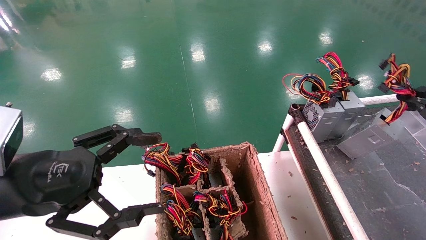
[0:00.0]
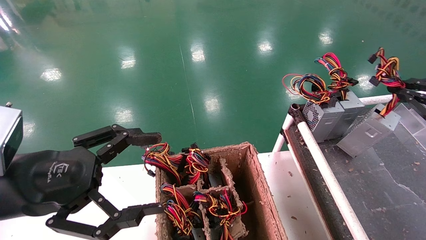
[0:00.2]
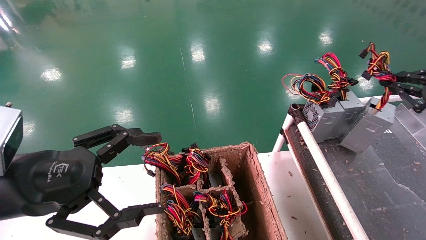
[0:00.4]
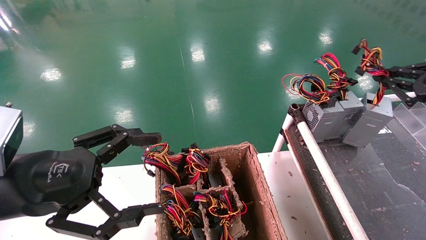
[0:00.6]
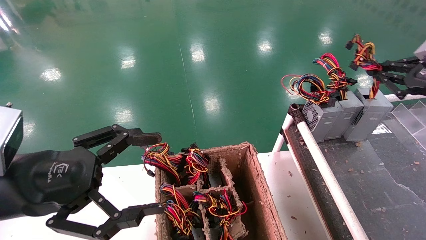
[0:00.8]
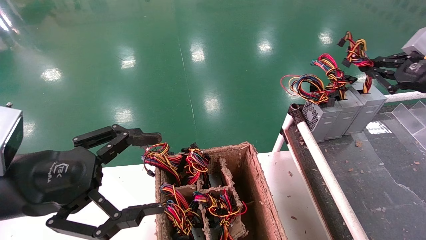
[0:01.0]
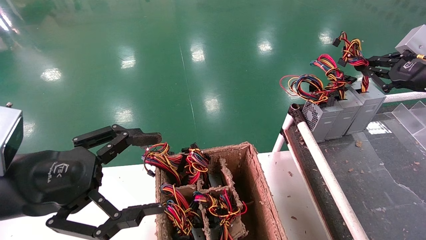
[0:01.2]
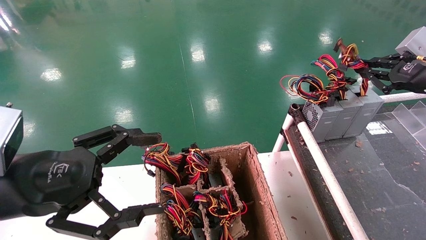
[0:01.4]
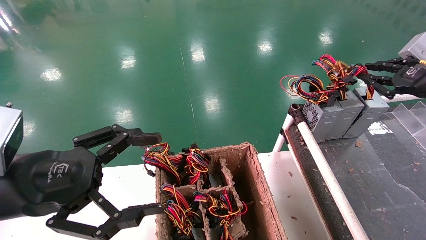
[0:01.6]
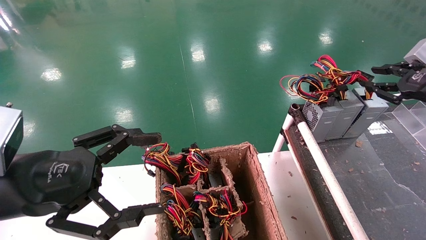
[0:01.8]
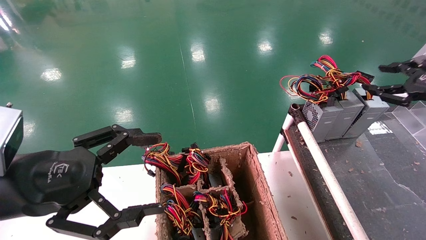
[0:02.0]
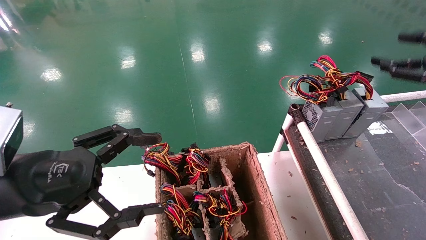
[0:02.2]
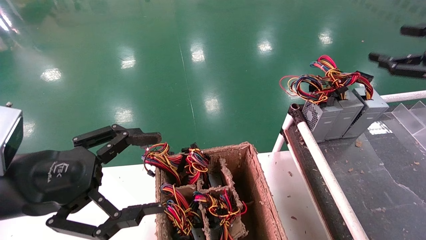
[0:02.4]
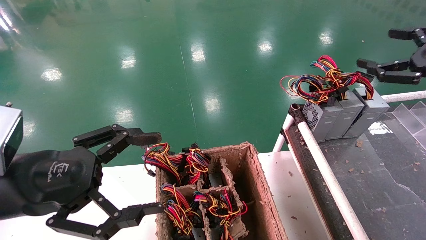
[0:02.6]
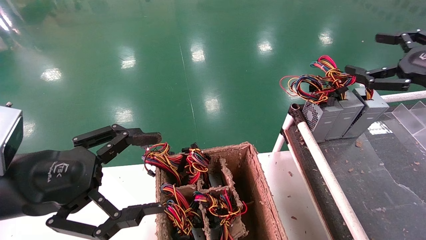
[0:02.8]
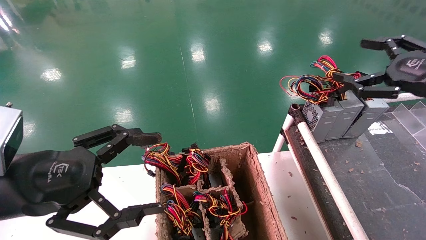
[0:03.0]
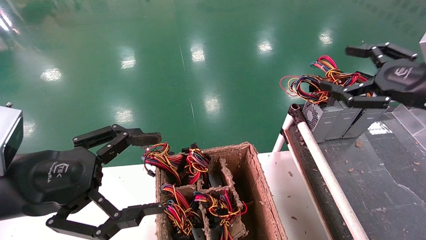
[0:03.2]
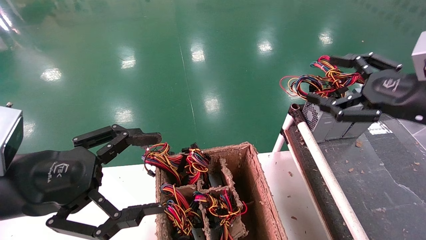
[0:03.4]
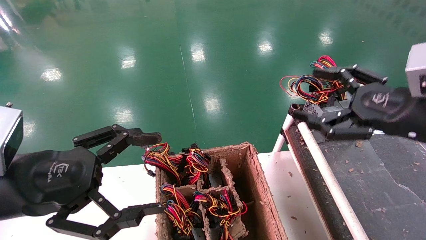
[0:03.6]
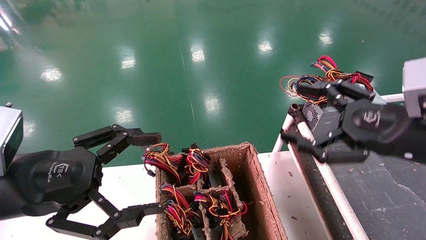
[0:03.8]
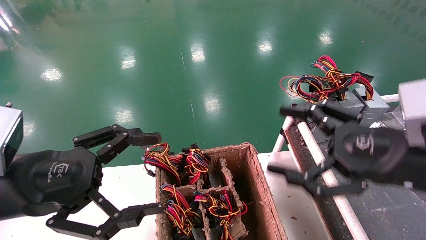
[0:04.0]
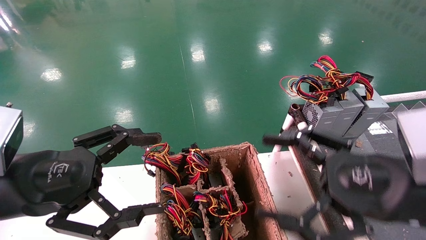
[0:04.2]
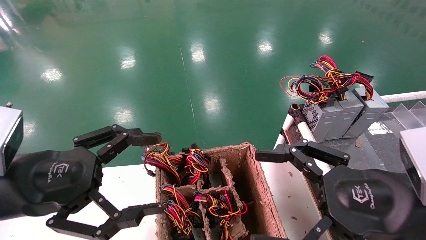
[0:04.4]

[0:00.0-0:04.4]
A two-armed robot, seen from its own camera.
0:00.0 to 0:01.4: The right gripper is displaced forward and upward by approximately 10 cm.
0:01.4 to 0:03.0: The right gripper heads backward, covering roughly 5 cm, and opens up.
0:03.0 to 0:04.4: The right gripper travels to the left, backward and downward by about 20 cm.
